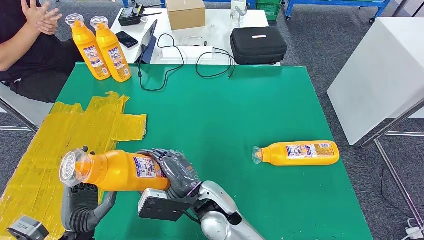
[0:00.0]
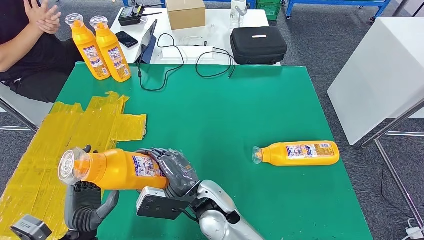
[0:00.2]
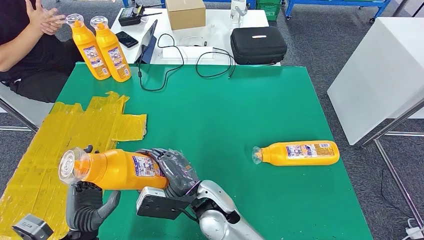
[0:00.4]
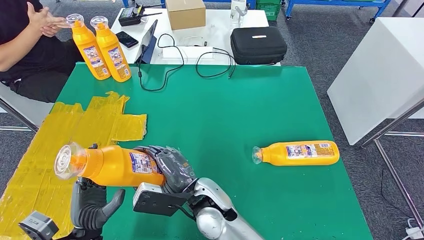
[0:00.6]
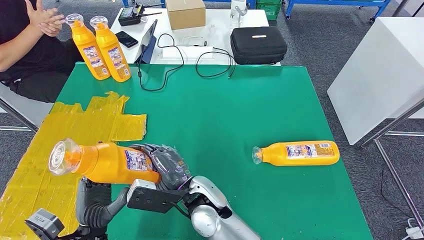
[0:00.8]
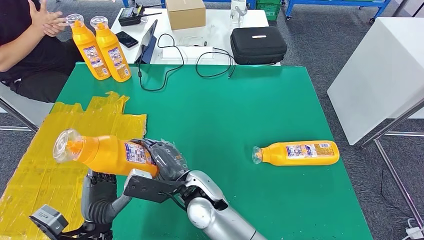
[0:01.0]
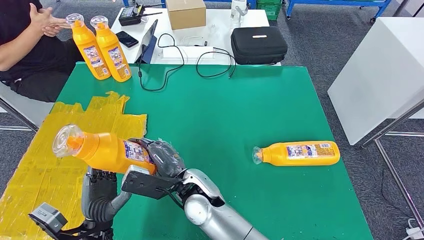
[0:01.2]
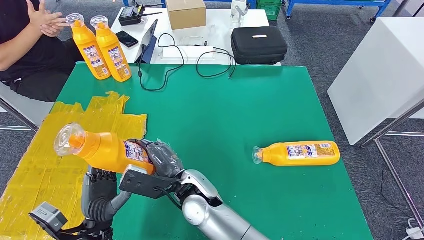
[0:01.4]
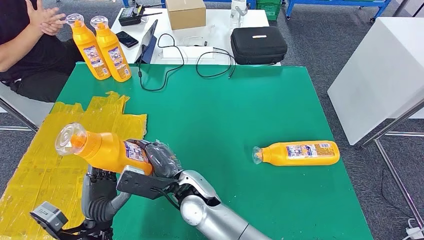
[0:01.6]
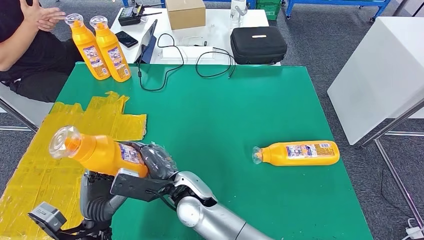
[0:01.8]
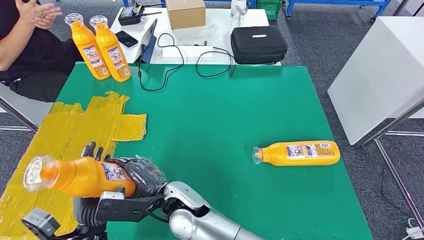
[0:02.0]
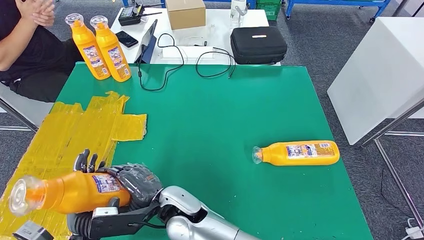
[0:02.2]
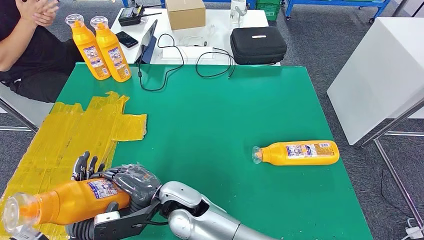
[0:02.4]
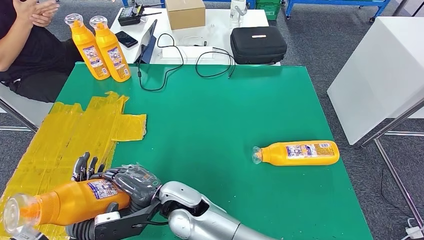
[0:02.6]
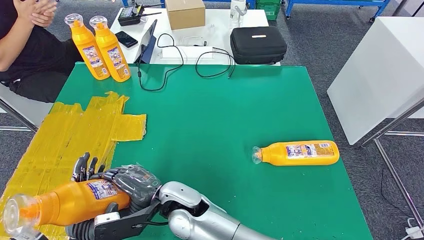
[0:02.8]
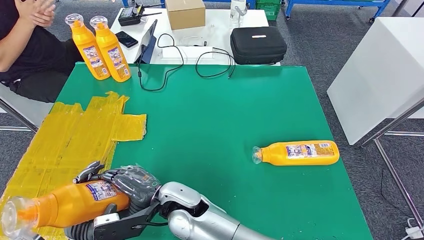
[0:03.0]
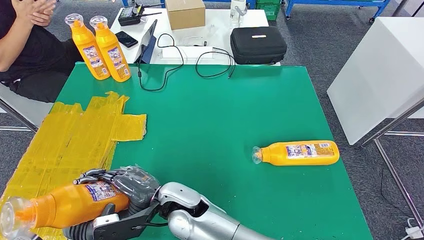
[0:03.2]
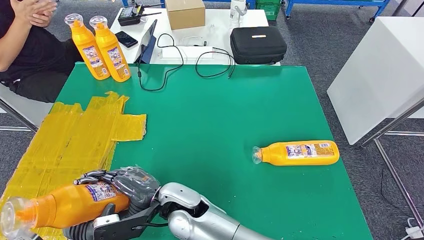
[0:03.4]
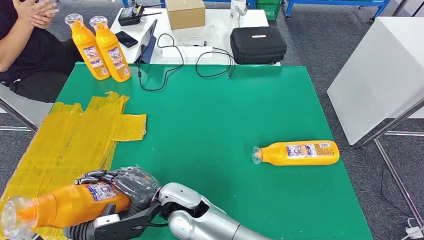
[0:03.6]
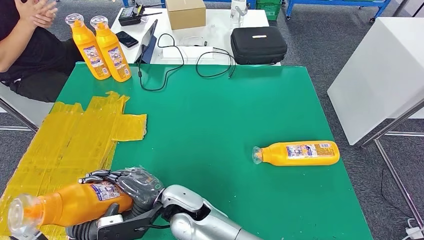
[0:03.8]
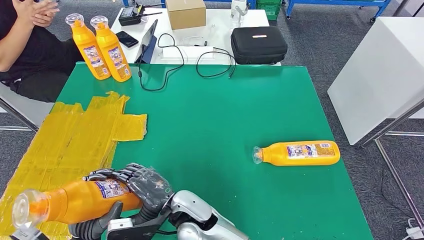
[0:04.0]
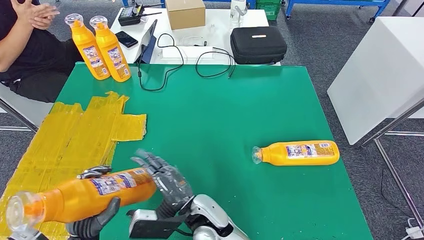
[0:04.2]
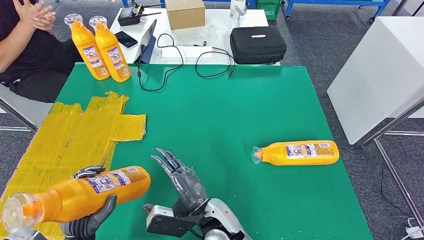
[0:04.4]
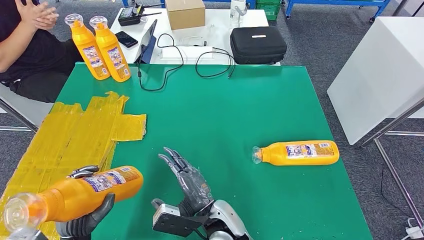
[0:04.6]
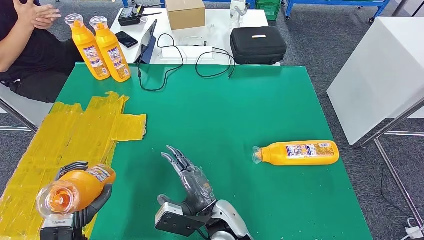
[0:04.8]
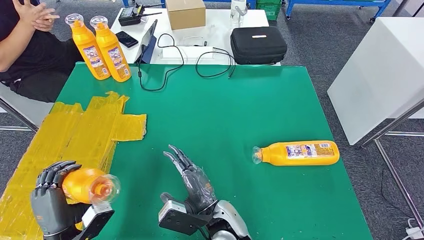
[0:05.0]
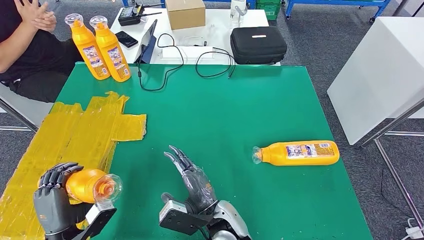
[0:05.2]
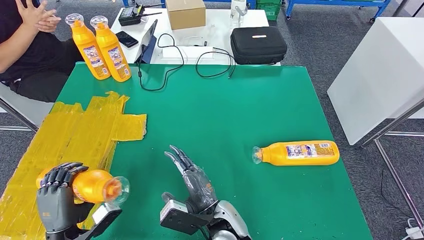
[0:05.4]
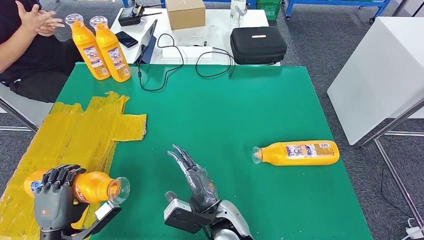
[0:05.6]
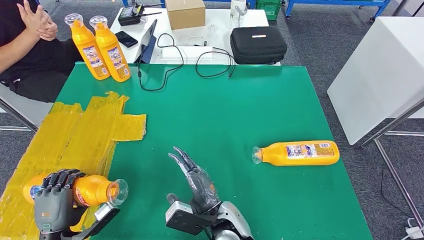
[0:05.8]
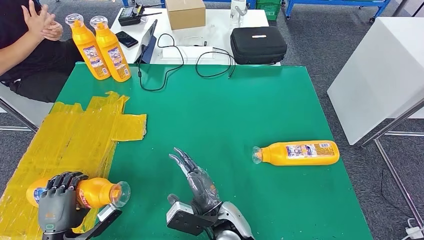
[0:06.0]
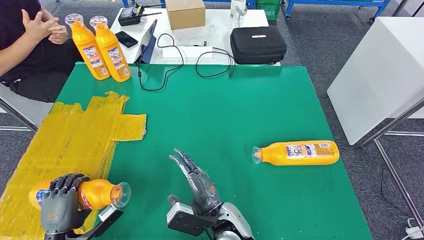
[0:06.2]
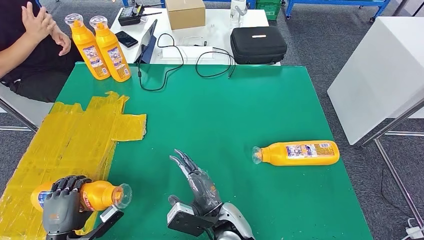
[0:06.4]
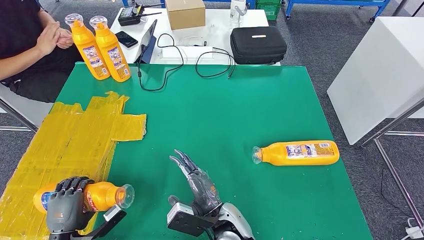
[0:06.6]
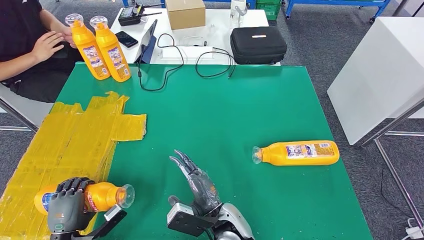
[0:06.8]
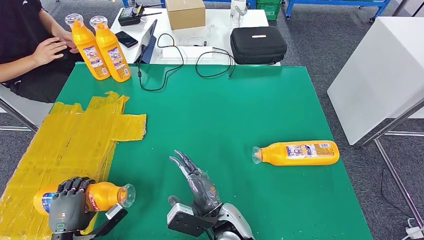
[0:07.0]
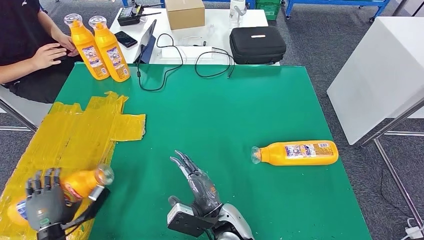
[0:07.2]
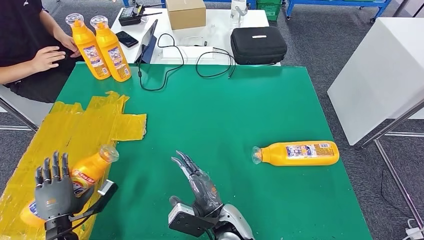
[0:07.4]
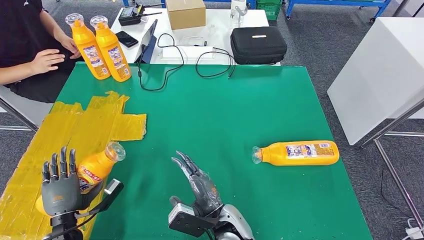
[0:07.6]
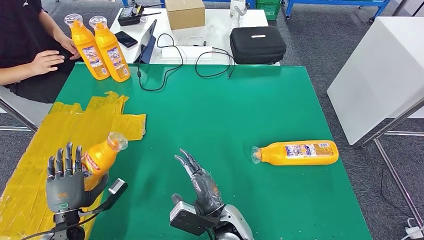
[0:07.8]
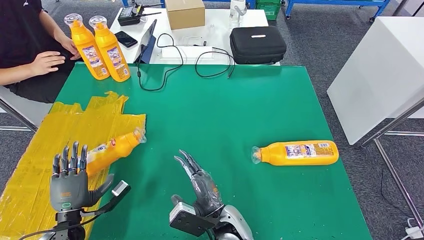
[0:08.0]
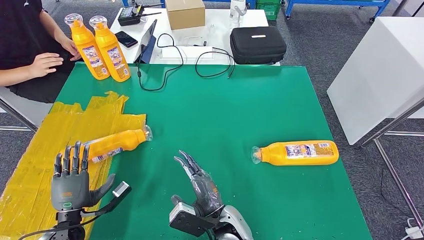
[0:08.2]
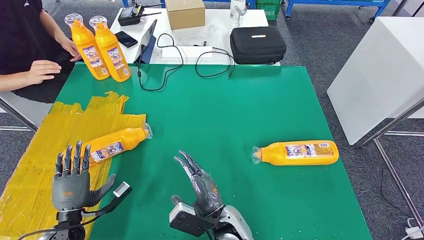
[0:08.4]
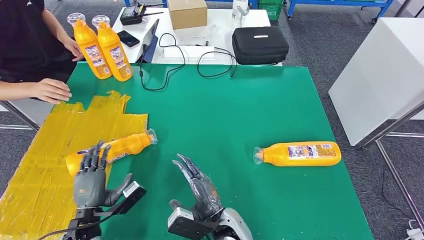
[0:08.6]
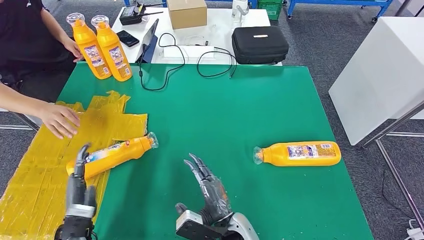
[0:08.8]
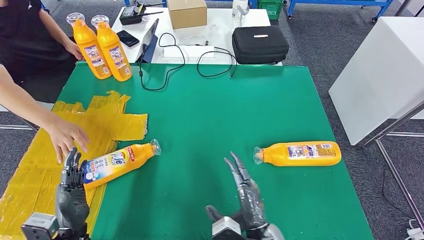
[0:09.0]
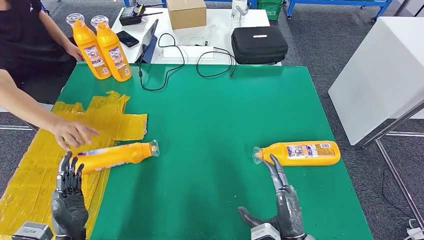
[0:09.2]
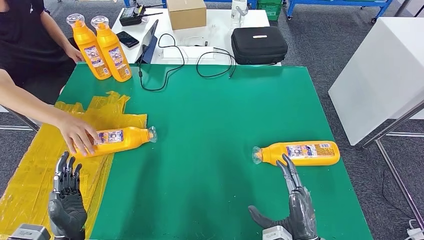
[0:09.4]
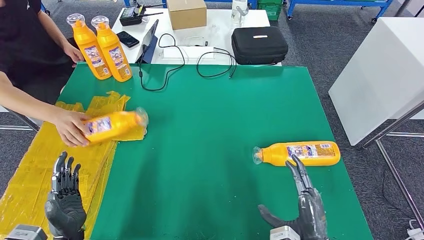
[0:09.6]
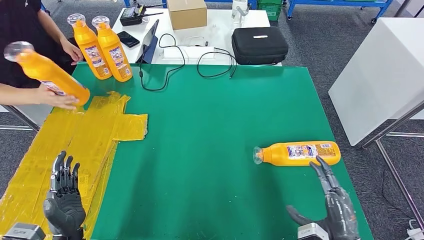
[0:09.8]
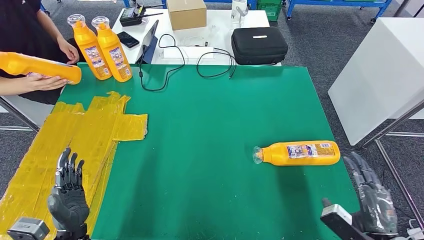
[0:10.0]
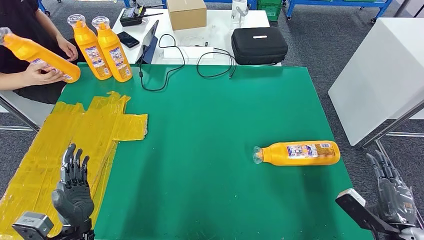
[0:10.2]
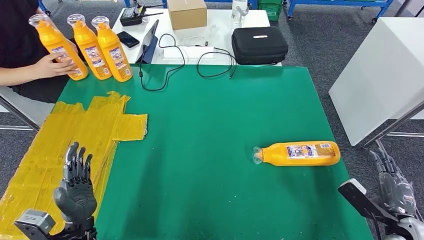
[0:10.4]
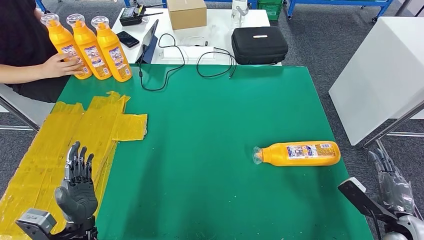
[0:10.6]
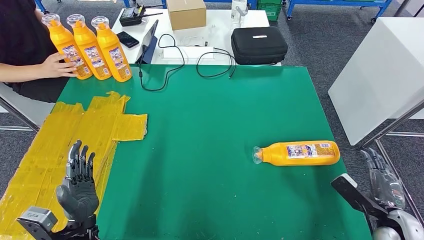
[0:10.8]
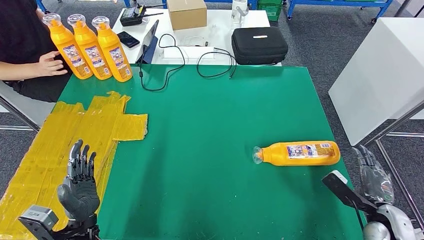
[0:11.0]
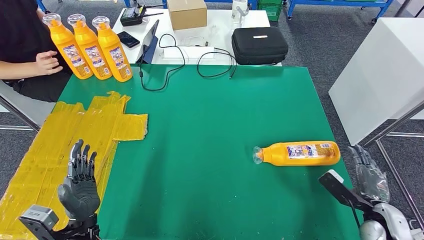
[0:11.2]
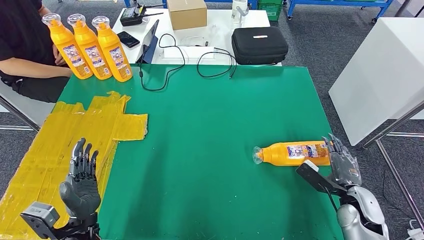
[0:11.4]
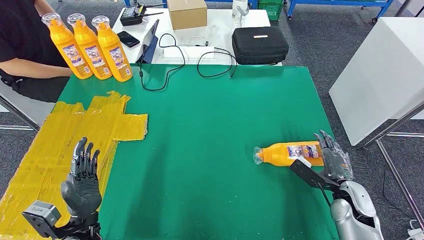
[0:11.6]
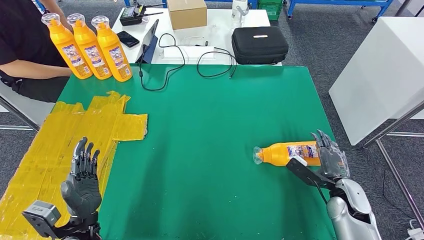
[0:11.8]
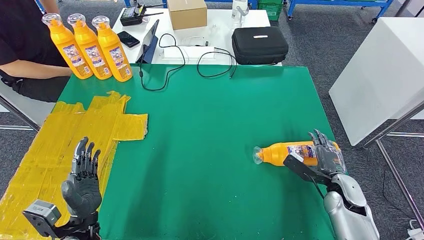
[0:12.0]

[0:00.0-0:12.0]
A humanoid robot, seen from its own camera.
Step, 0:00.6 to 0:06.6: Flip the fast-moving consumer goods bottle to the front side.
0:00.0 to 0:01.6: The right hand moves about 5 cm.
0:03.0 to 0:04.4: The right hand shifts some 10 cm to the right.
0:04.4 to 0:06.0: The left hand is displaced to the left by about 10 cm.
0:07.6 to 0:09.0: The left hand changes place by approximately 5 cm. The right hand moves to the right, approximately 10 cm.
0:09.0 to 0:10.4: The right hand is displaced to the right by some 35 cm.
0:10.4 to 0:12.0: The right hand heads forward and to the left, covering approximately 15 cm.

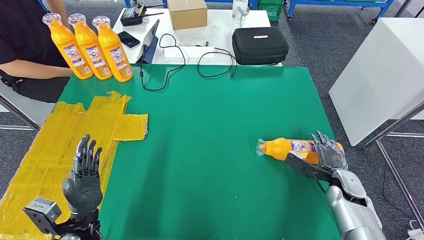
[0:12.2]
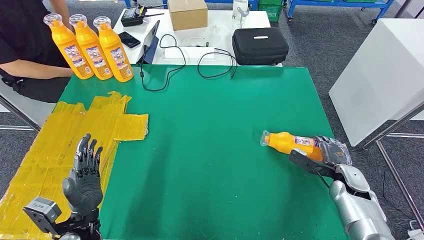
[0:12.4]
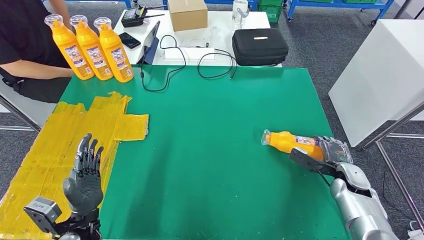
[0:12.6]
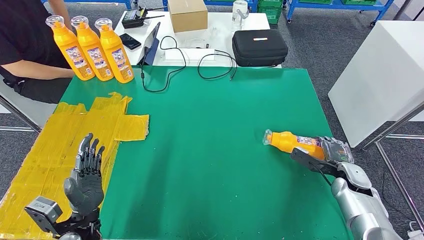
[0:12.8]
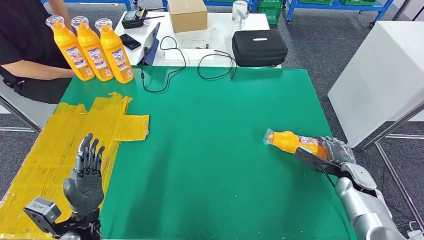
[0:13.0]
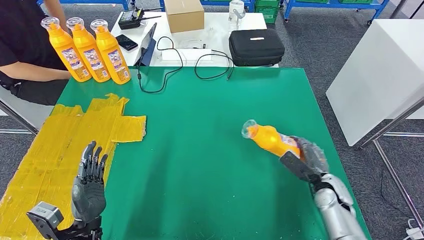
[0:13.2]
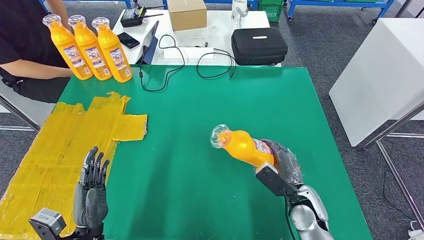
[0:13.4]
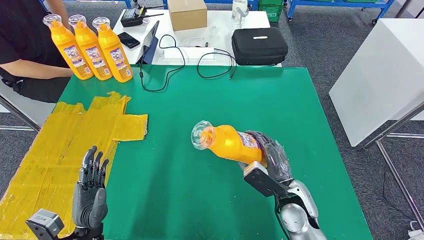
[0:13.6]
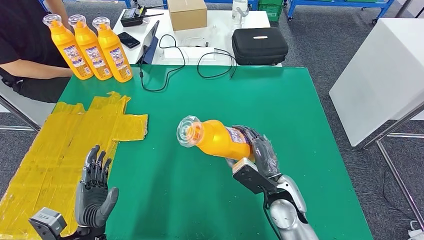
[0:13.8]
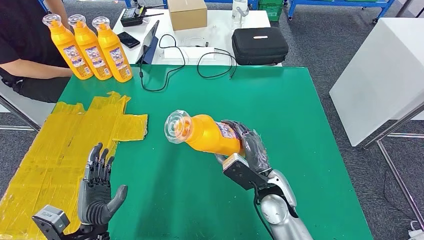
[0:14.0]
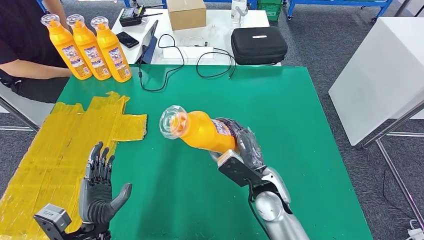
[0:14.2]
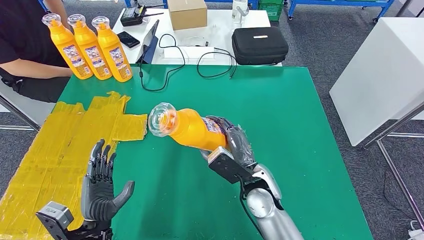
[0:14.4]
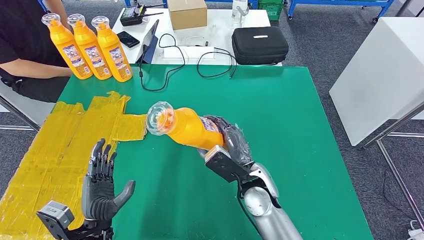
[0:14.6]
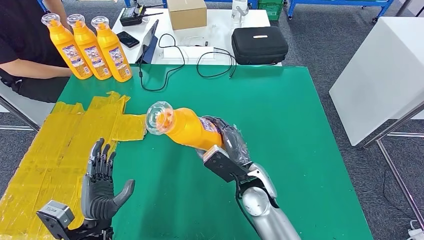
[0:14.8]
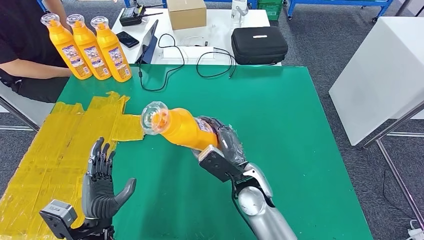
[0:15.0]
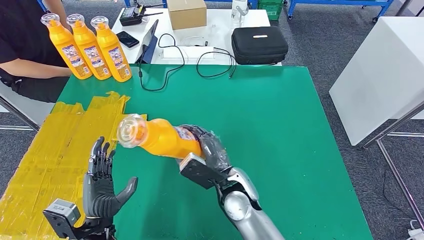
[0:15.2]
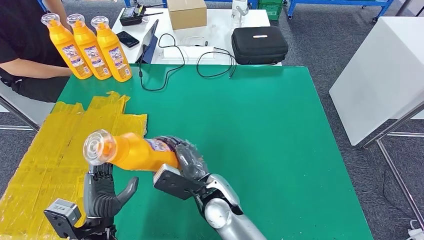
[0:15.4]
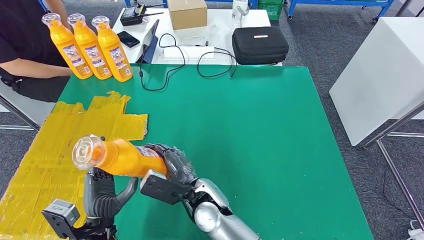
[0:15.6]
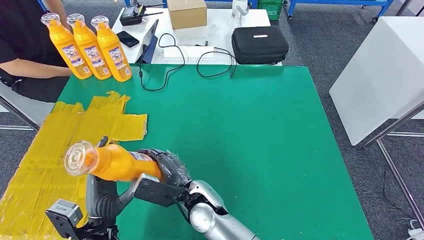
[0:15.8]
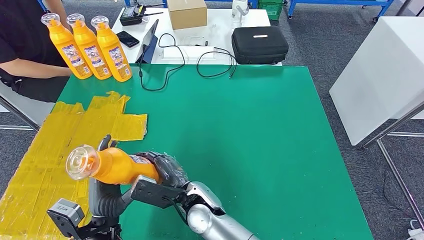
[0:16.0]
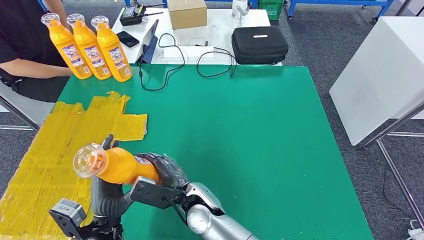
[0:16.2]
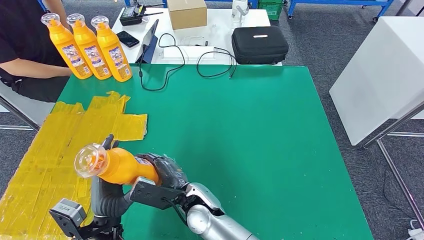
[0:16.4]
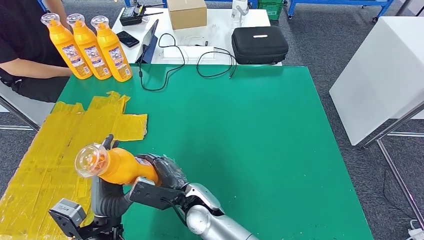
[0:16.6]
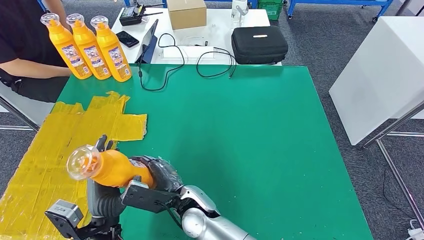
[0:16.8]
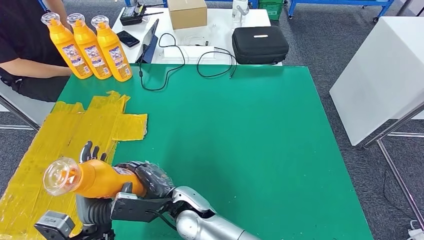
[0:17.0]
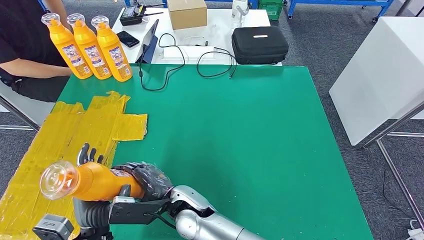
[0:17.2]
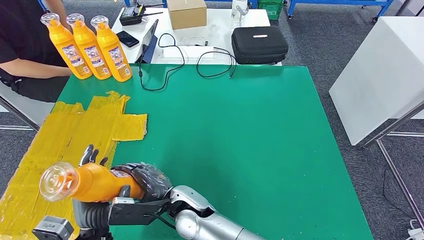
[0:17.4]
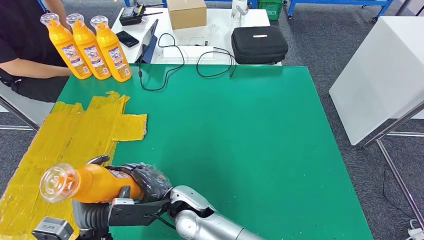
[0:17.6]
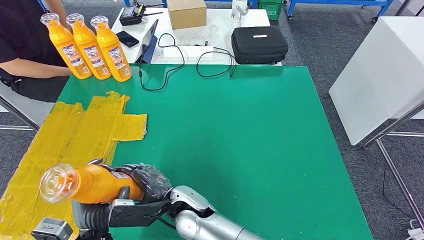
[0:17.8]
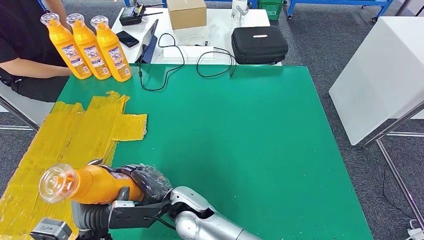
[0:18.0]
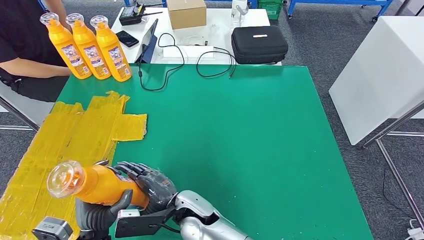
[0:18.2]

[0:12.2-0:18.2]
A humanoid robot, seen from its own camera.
Step, 0:12.2 to 0:15.0: Pick up the fast-moving consumer goods bottle from the table.
0:12.2 to 0:13.8: The right hand travels to the left by approximately 20 cm.
0:13.8 to 0:15.2: The right hand shifts roughly 10 cm to the left.
0:15.2 to 0:16.6: The right hand goes some 10 cm to the left.
0:16.6 to 0:18.2: There are only small adjustments of the hands.
